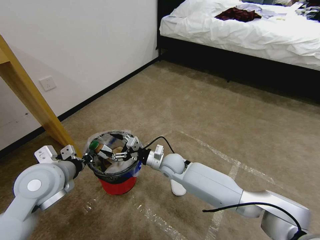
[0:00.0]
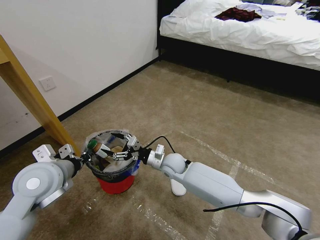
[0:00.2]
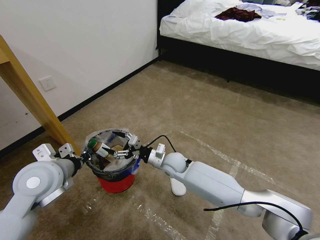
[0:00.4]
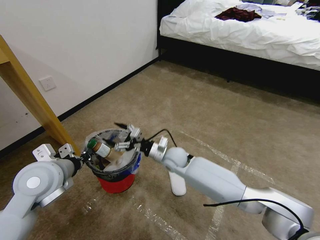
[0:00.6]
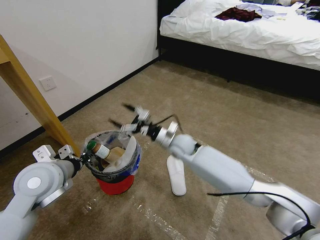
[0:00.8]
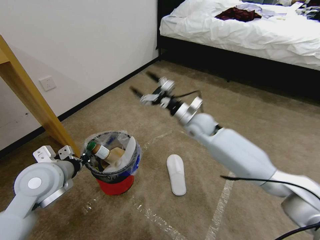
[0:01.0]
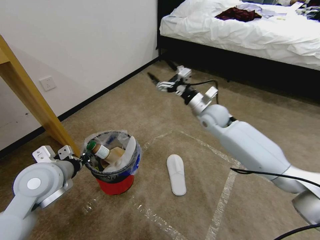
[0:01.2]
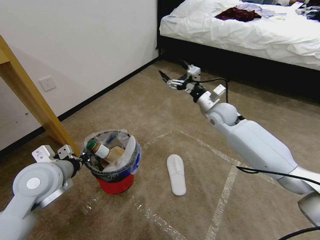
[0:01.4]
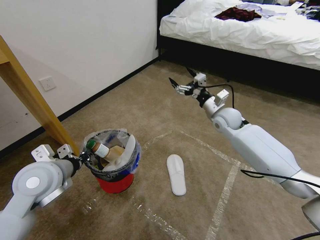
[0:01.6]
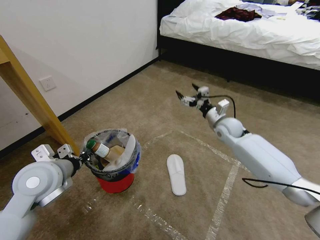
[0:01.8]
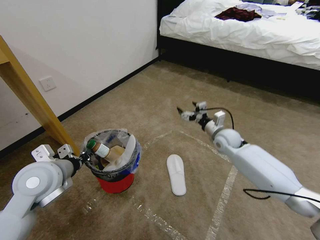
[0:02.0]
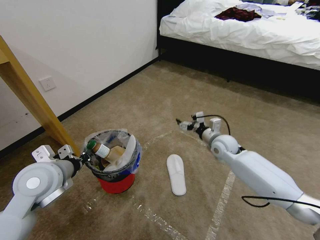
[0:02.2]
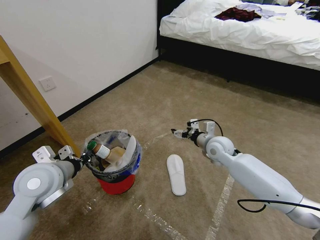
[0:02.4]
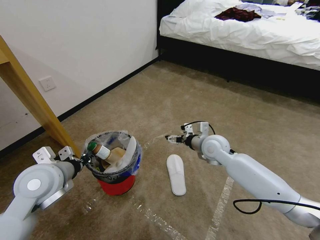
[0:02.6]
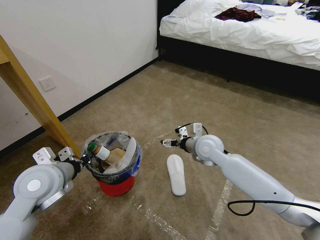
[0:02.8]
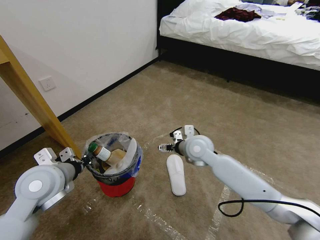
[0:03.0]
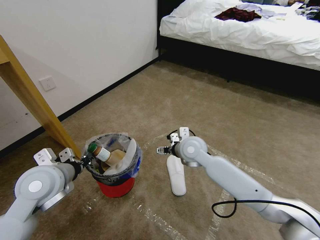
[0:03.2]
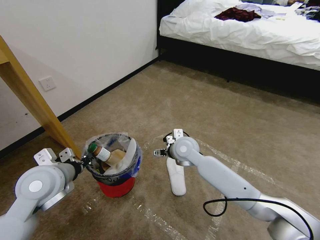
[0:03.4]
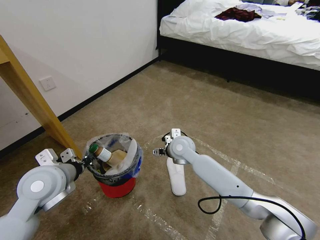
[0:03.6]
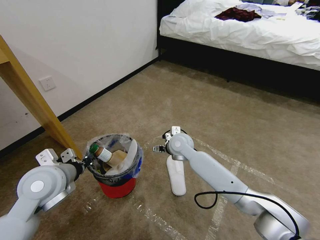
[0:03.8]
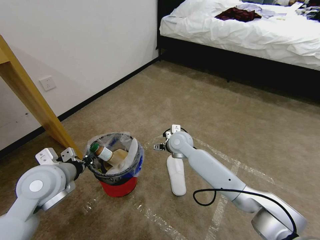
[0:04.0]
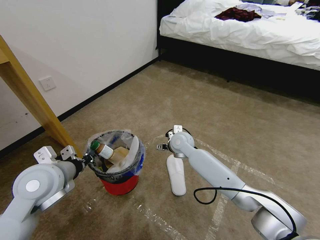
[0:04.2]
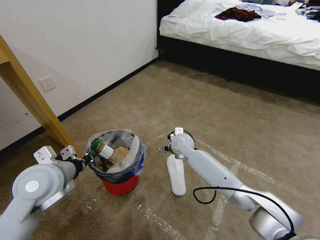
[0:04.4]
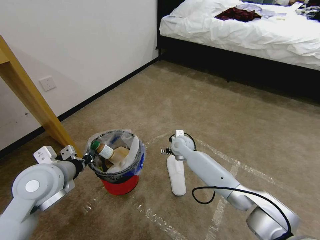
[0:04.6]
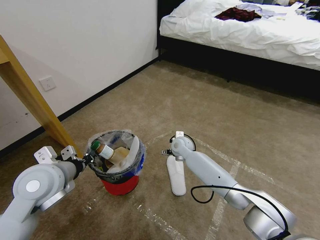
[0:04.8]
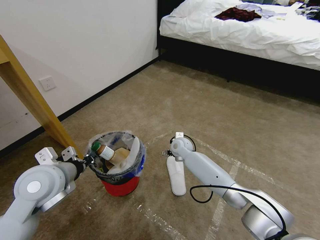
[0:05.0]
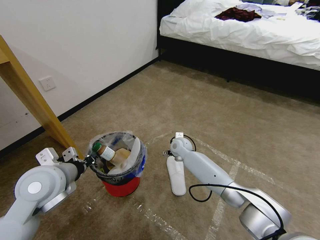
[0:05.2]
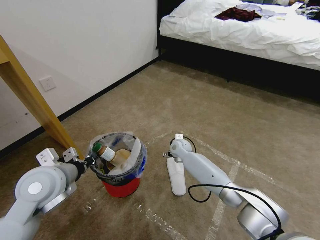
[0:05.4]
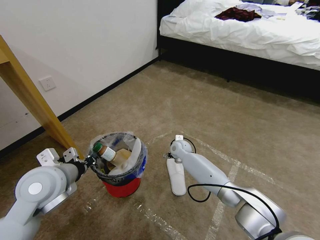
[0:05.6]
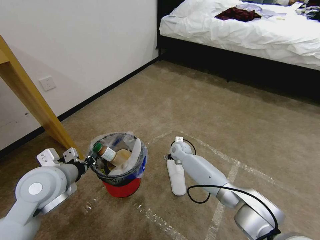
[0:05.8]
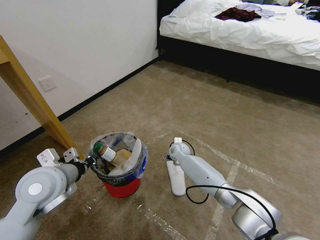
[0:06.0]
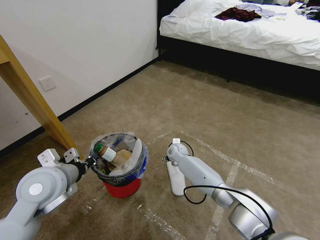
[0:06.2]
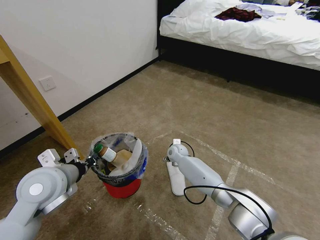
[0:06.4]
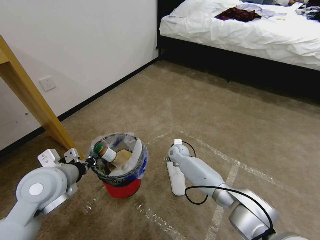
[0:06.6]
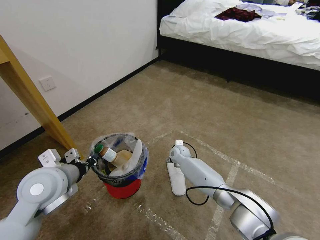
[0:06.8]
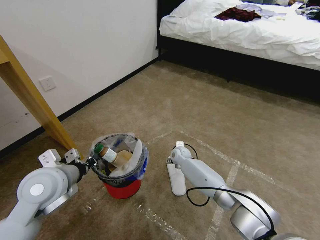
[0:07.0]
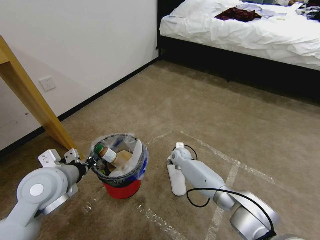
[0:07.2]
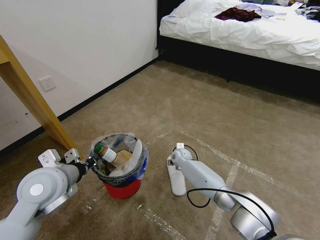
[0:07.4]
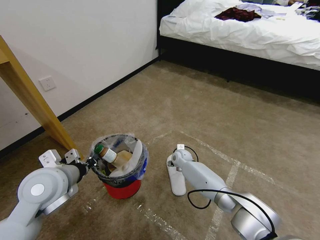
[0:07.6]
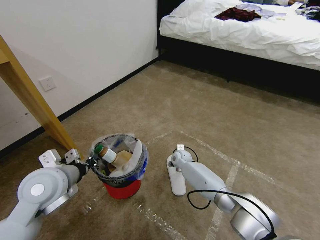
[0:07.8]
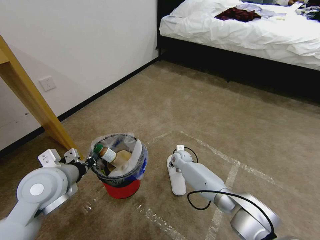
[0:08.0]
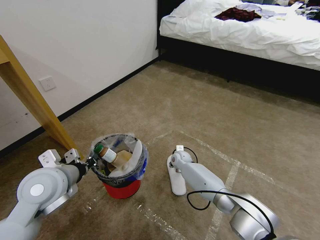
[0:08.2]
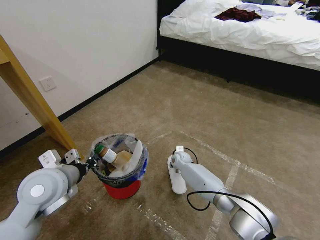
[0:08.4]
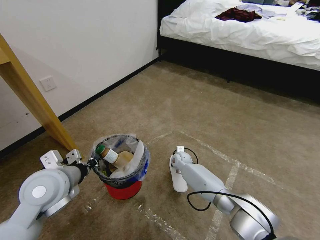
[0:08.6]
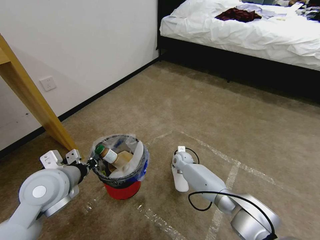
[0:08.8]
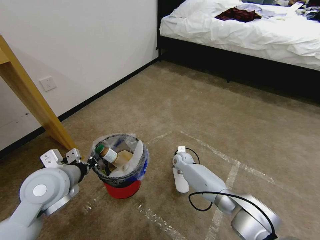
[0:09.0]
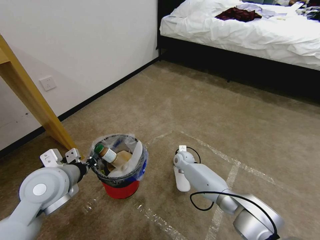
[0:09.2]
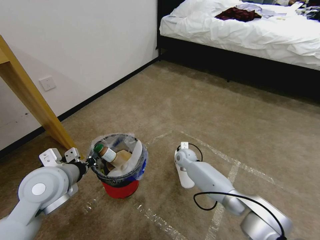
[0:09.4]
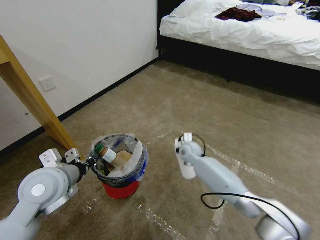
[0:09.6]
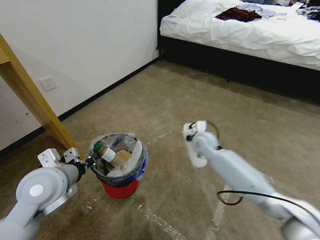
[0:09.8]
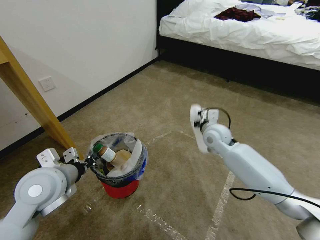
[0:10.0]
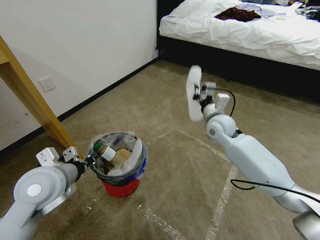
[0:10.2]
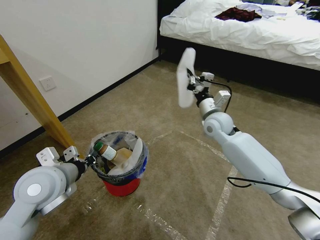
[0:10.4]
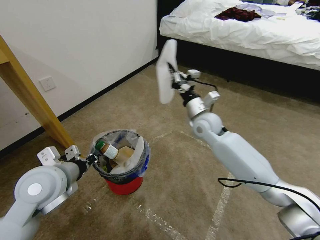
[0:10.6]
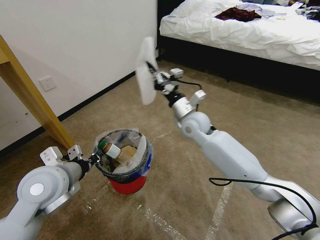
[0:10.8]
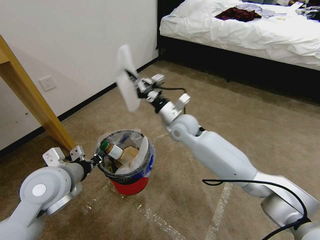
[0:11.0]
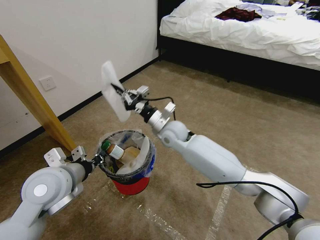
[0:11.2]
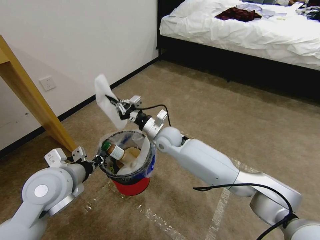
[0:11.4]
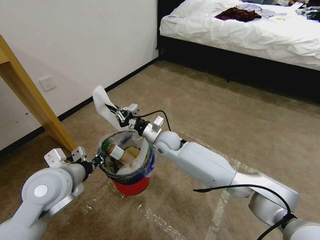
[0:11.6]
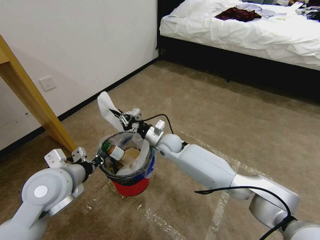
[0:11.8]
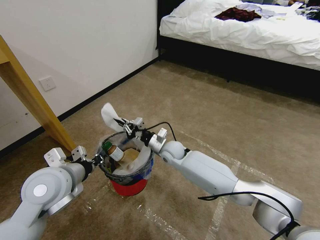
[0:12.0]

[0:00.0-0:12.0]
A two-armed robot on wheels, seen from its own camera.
Task of the whole recording: Pick up the trash bin and place the garbage on the floor into it.
0:00.0 to 0:01.6: The right gripper moves to the right, upward and forward, roughly 30 cm.
0:01.6 to 0:03.0: The right gripper shifts roughly 15 cm to the left and backward.
0:03.0 to 0:04.4: The right gripper shifts approximately 10 cm forward and downward.
0:04.4 to 0:06.0: The right gripper heads downward, covering roughly 10 cm.
0:06.0 to 0:07.6: There are only small adjustments of the grippers.
0:07.6 to 0:09.0: The right gripper closes its fingers.
0:09.0 to 0:10.4: The right gripper goes some 25 cm upward.
0:10.4 to 0:12.0: The right gripper heads to the left and downward, covering about 20 cm.

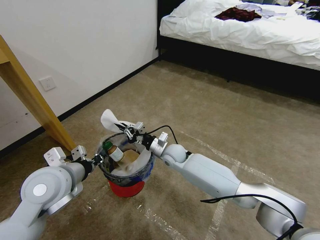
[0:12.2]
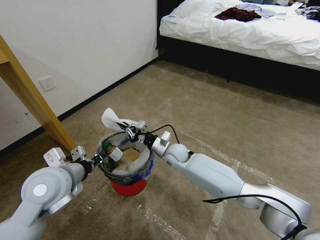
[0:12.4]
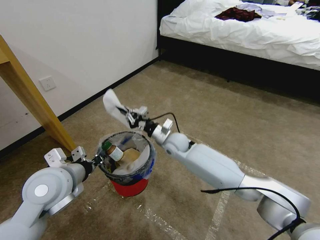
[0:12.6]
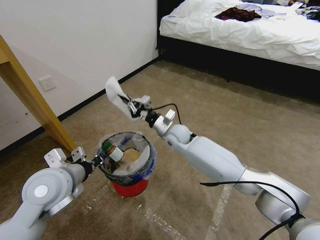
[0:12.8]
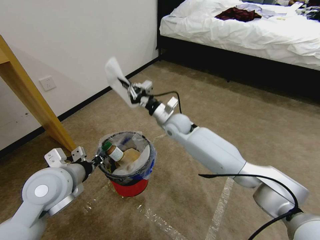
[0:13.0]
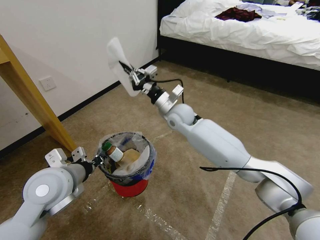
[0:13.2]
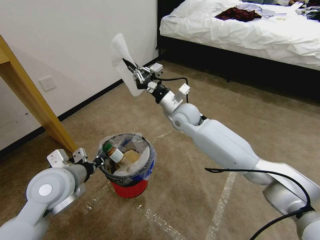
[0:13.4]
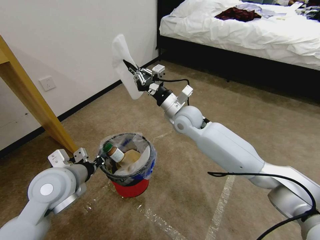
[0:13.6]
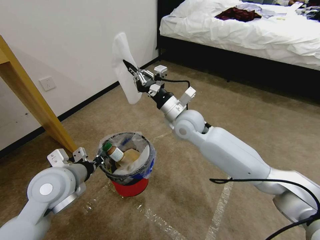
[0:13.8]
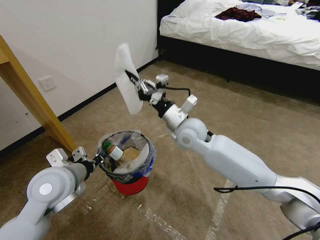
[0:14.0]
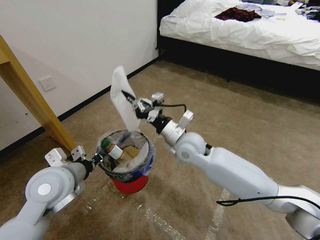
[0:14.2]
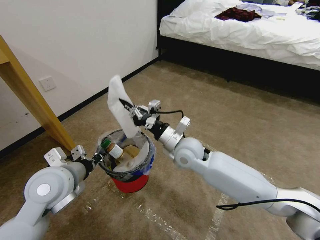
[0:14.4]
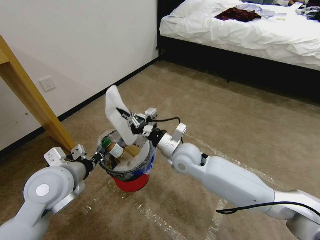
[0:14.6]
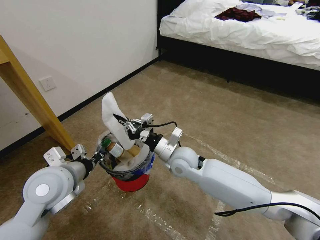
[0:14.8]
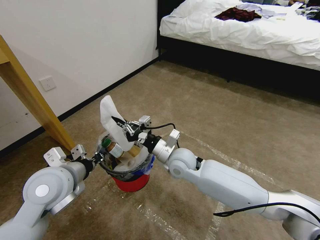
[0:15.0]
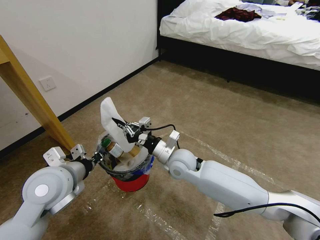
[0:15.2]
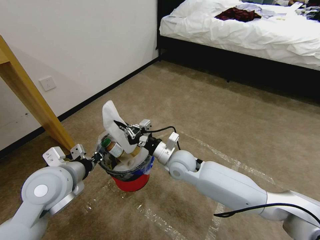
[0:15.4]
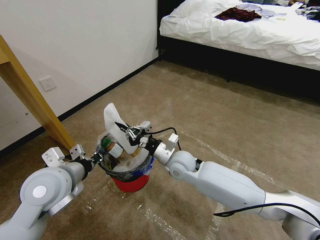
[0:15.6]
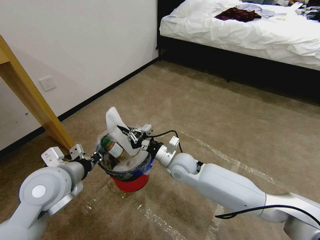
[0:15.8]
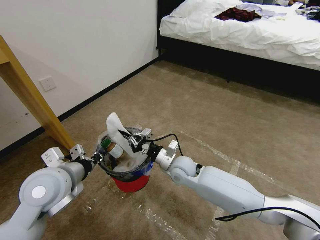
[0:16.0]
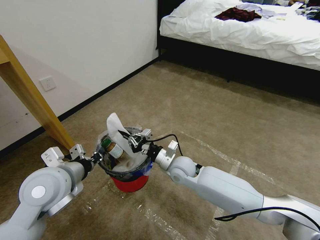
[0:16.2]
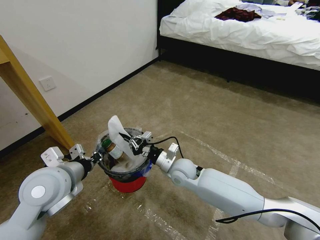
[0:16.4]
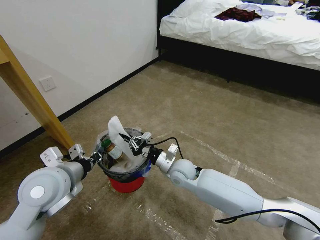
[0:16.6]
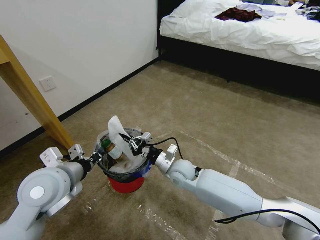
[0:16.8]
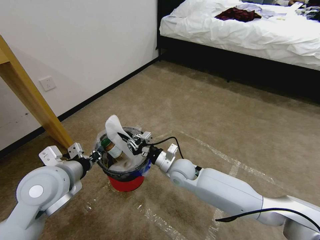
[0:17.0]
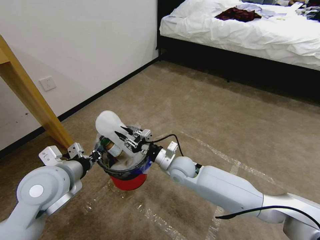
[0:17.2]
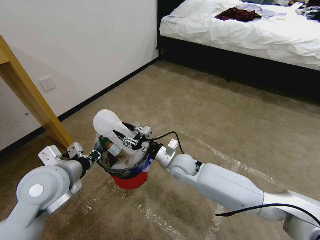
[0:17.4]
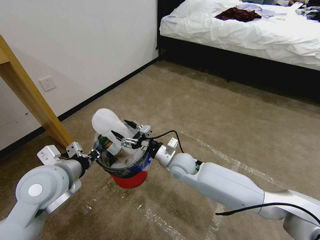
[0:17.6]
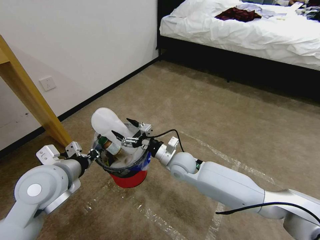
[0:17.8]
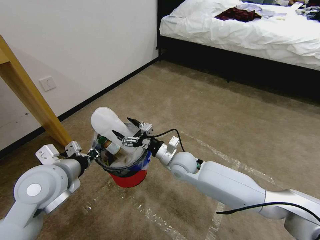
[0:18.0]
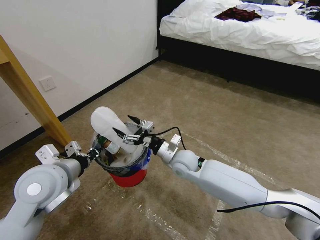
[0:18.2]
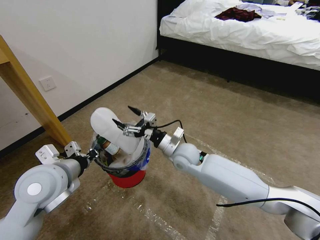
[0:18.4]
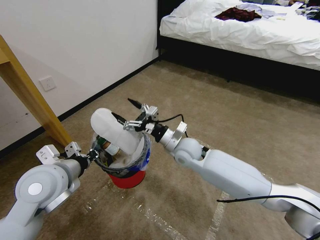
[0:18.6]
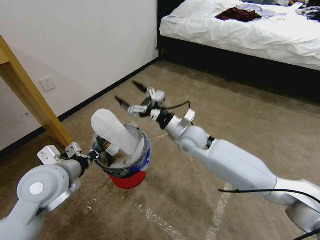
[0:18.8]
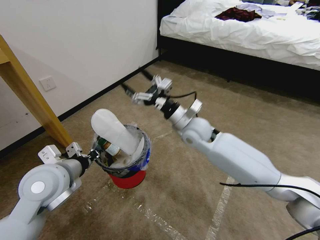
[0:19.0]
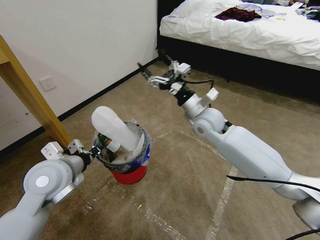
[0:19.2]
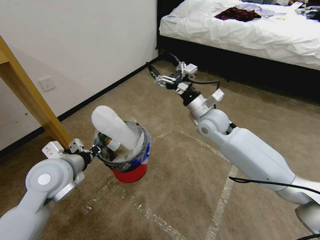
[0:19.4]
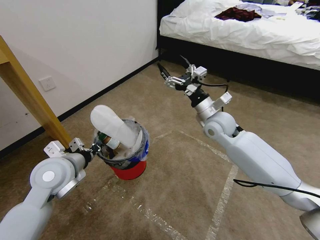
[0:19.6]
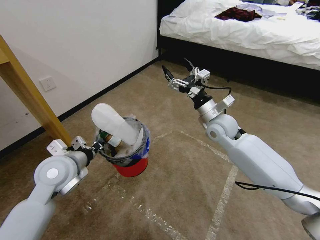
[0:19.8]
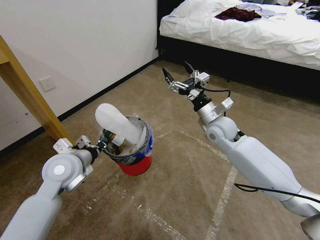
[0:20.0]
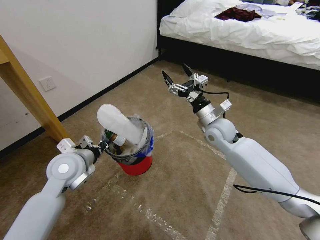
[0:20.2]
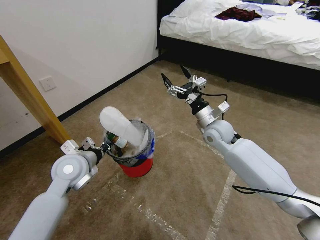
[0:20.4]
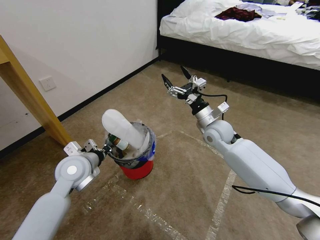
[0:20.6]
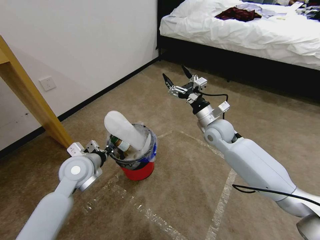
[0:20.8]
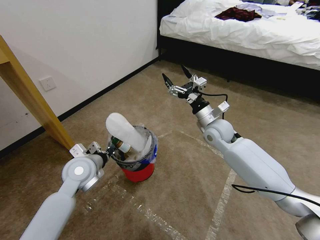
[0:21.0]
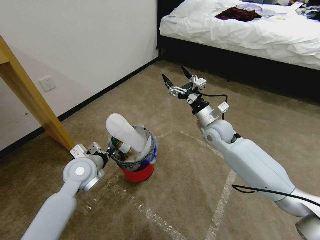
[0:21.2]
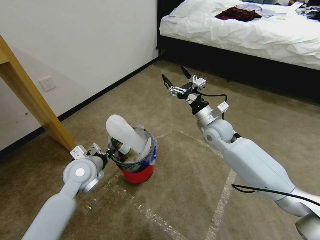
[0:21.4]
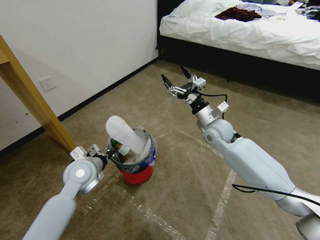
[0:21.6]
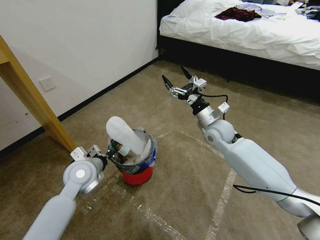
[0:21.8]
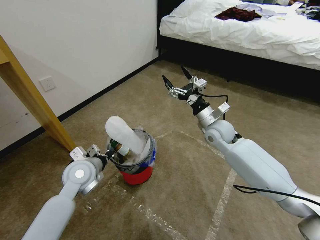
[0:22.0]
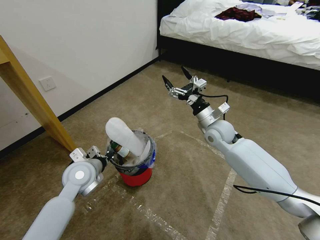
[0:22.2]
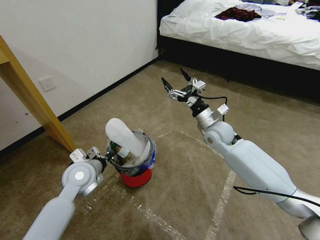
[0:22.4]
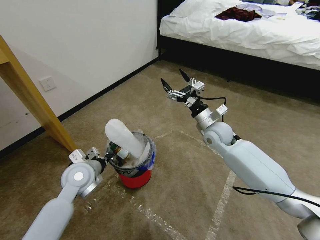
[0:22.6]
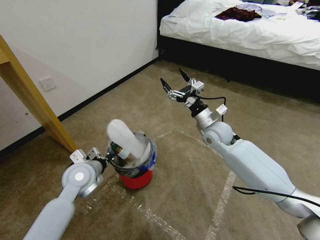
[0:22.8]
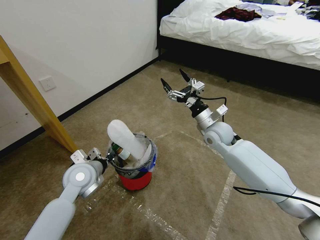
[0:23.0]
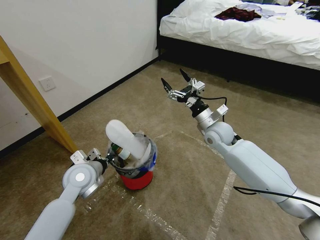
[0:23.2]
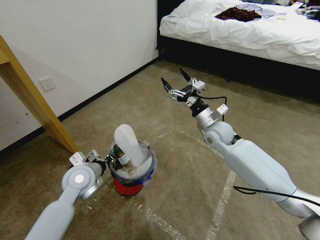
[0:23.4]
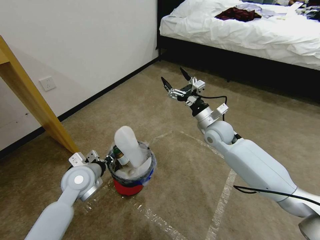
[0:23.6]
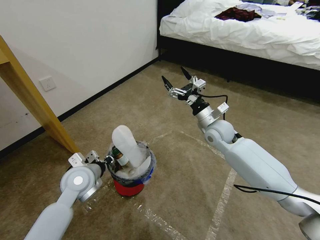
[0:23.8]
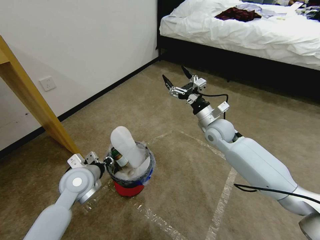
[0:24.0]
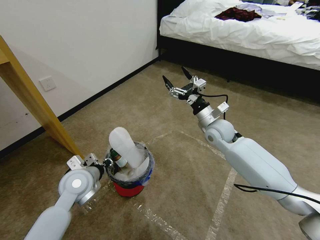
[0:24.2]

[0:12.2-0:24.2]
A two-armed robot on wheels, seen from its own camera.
Task of the whole recording: Pick up the trash bin and place the garbage on the floor into it.
0:12.2 to 0:13.8: The right gripper goes roughly 20 cm upward.
0:13.8 to 0:15.2: The right gripper goes approximately 15 cm downward and backward.
0:15.2 to 0:16.6: The right gripper shifts roughly 5 cm downward.
0:16.6 to 0:18.2: The right gripper opens up.
0:18.2 to 0:19.8: The left gripper changes place by about 5 cm. Meanwhile the right gripper moves to the right, upward and forward, roughly 20 cm.
0:19.8 to 0:21.2: The left gripper is displaced downward by some 5 cm.
0:21.2 to 0:24.2: The grippers move only a little.
